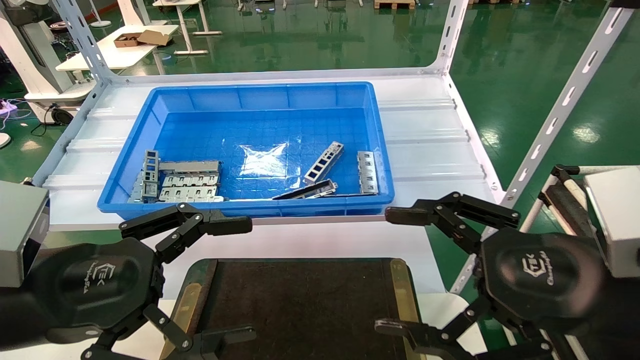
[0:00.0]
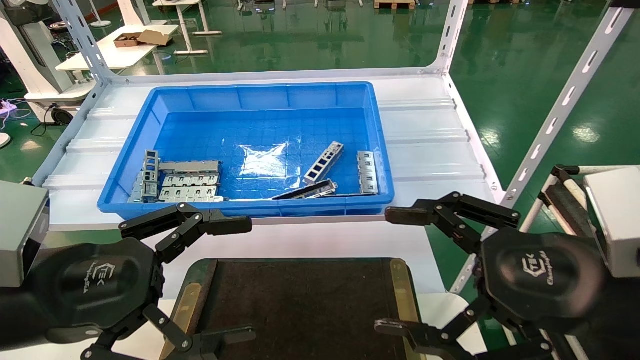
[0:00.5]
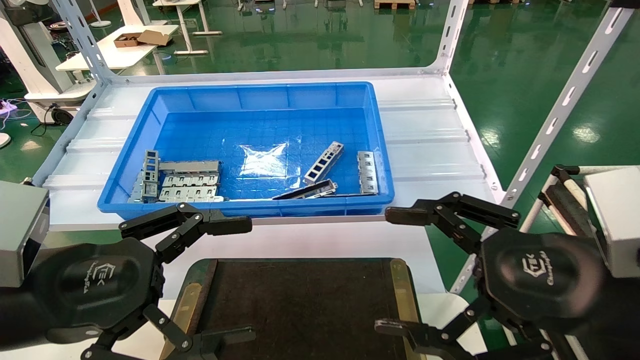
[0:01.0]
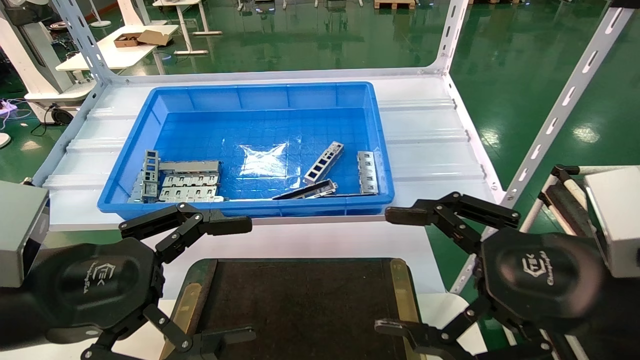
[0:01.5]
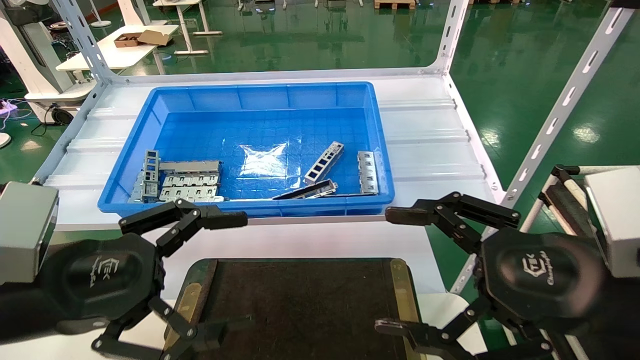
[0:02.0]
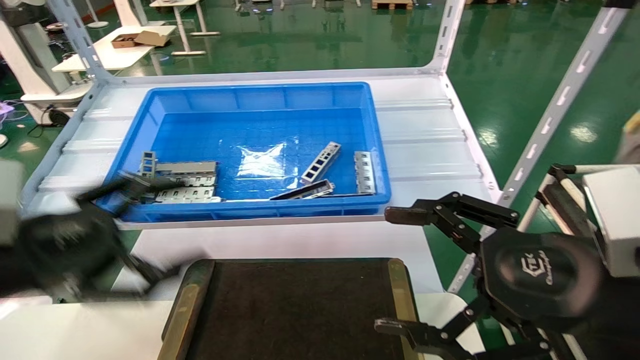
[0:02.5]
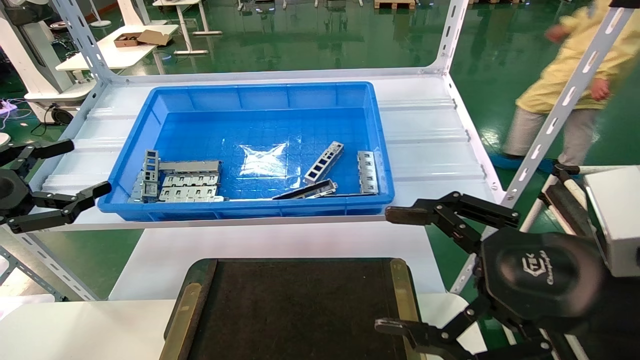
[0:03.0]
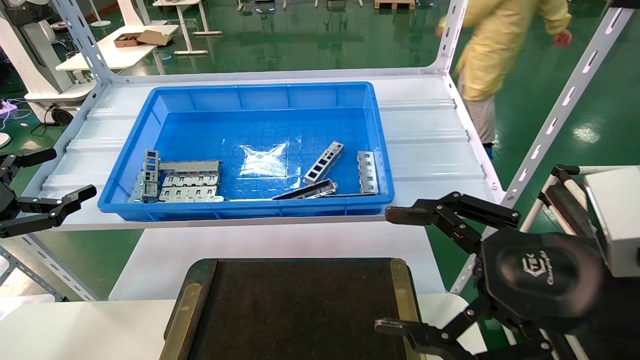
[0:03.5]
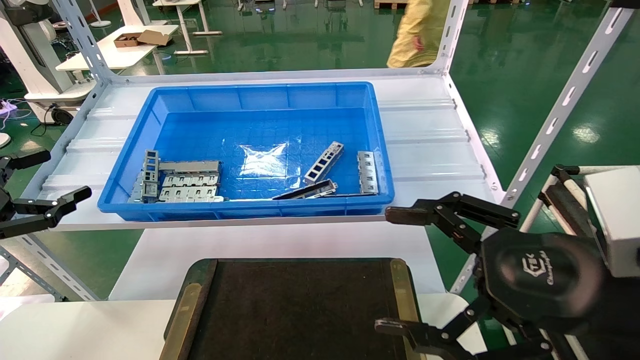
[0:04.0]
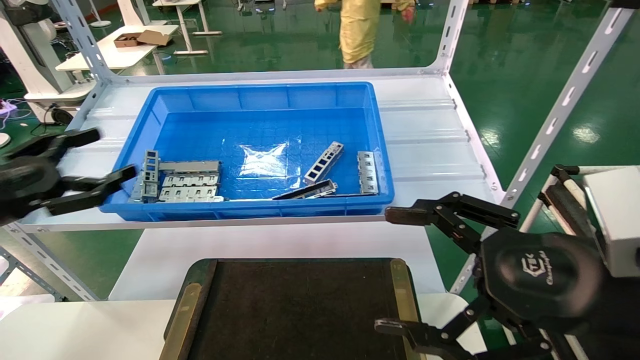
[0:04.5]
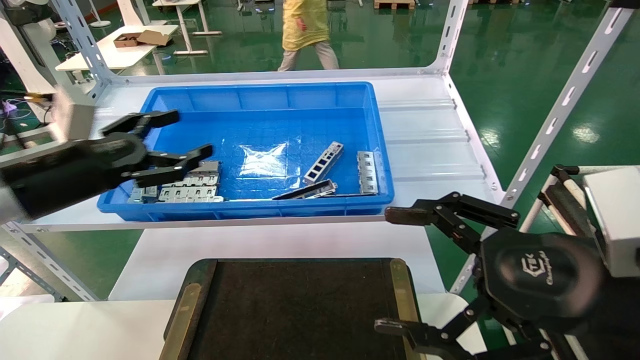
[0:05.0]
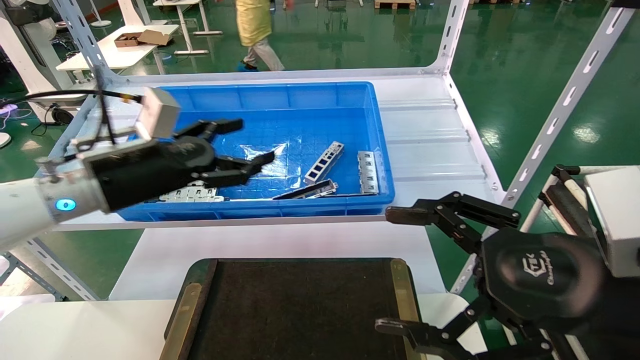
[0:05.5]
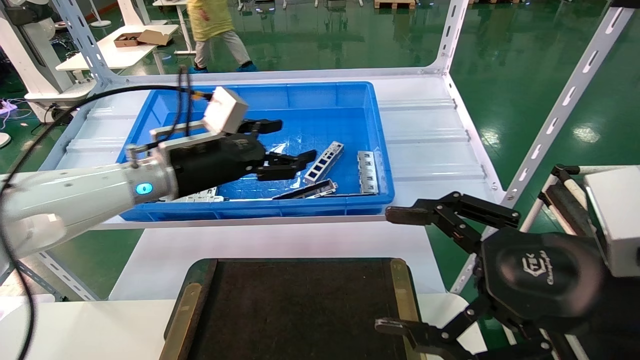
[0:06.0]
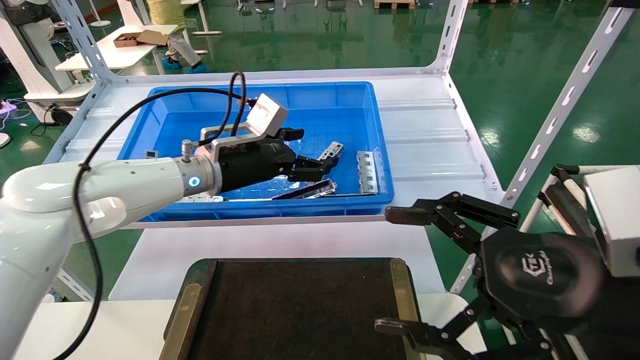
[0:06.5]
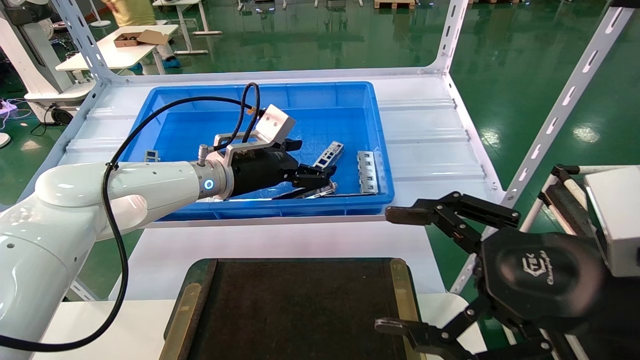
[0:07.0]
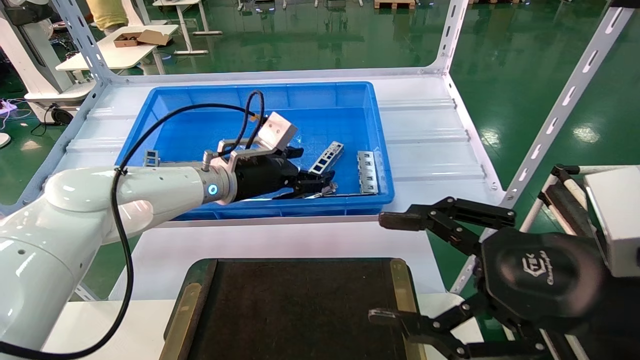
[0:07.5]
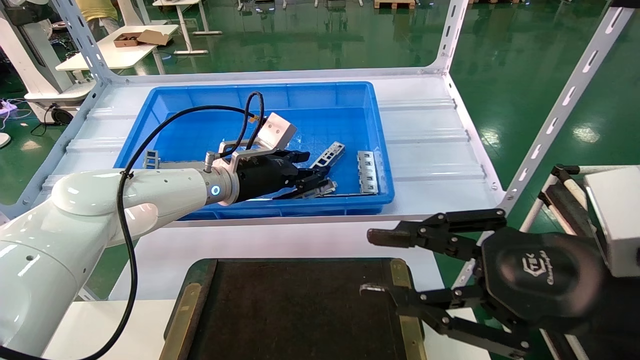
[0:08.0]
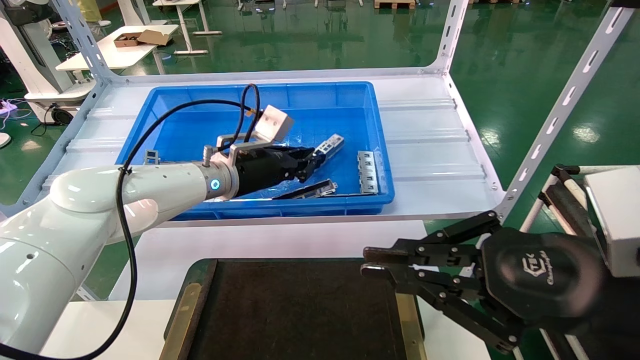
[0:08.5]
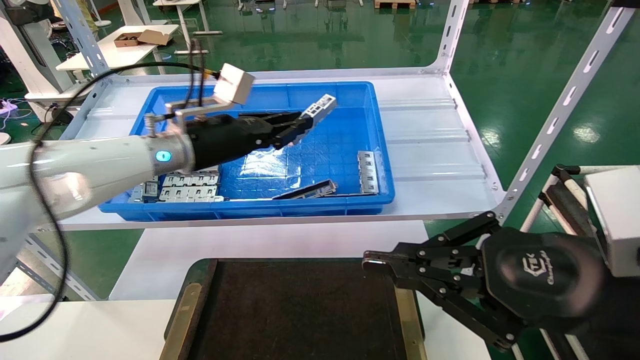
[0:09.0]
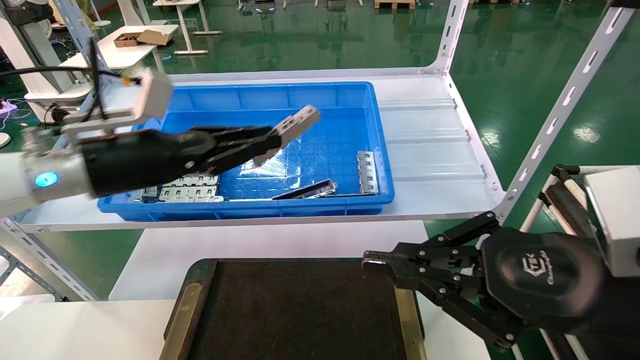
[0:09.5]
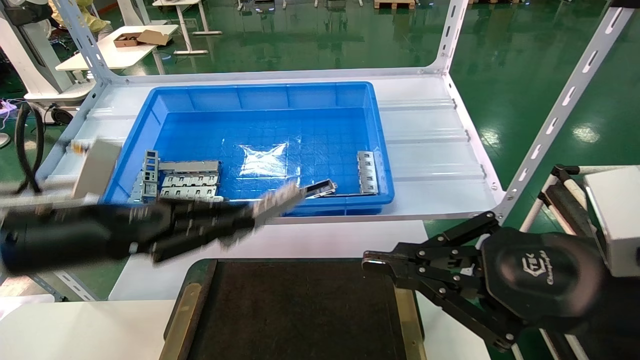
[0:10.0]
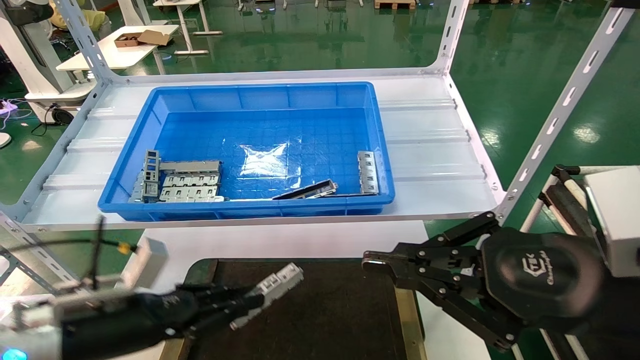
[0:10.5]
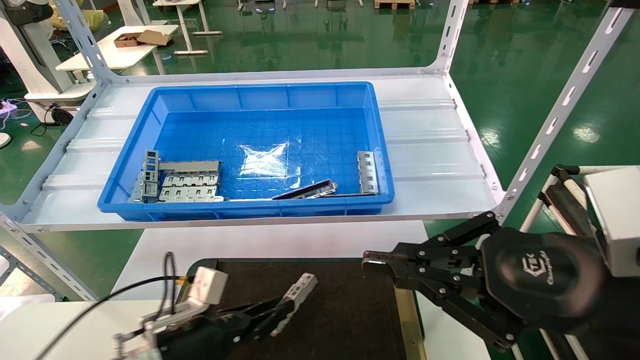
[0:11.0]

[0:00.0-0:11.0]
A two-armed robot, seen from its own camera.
Task of the whole recording: Grasp the part with one hand and place it on the black container.
Step, 0:02.0 to 0:08.5: Pick up the front USB bracket from the feeding area.
0:00.0 to 0:02.0: Neither gripper changes place.
0:02.0 to 0:03.5: The left gripper goes roughly 20 cm to the left.
0:03.5 to 0:05.5: The left gripper shifts approximately 25 cm to the right and forward.
0:05.5 to 0:07.5: The left gripper heads to the right and forward, covering roughly 15 cm.
0:07.5 to 0:09.0: The right gripper closes, while the left gripper moves upward, roughly 5 cm, and closes its fingers.
0:09.0 to 0:11.0: The left gripper heads downward and backward, covering approximately 30 cm.

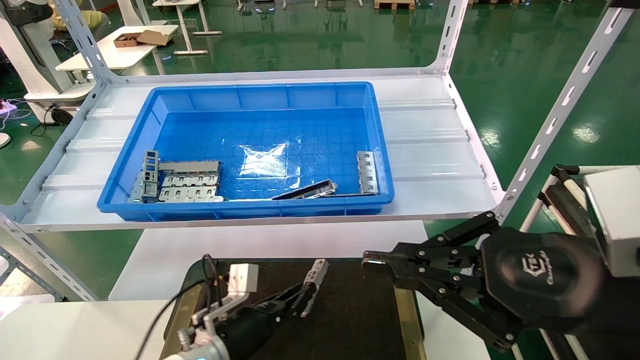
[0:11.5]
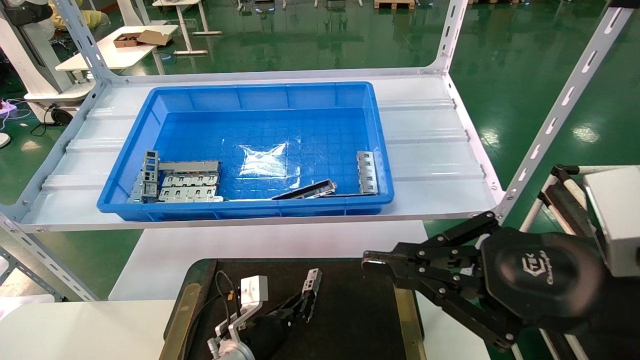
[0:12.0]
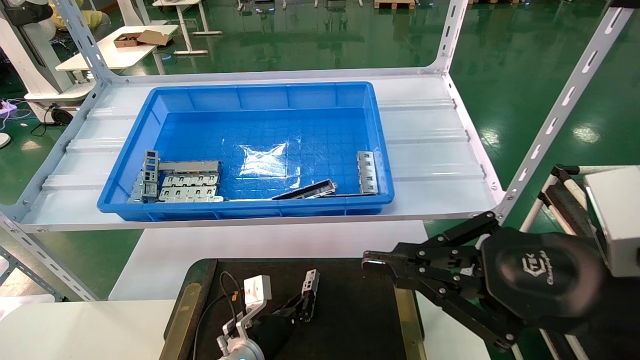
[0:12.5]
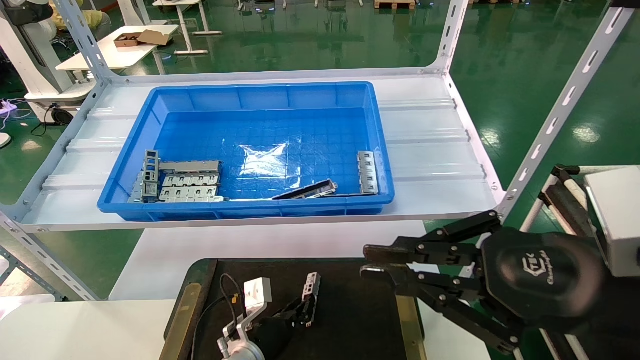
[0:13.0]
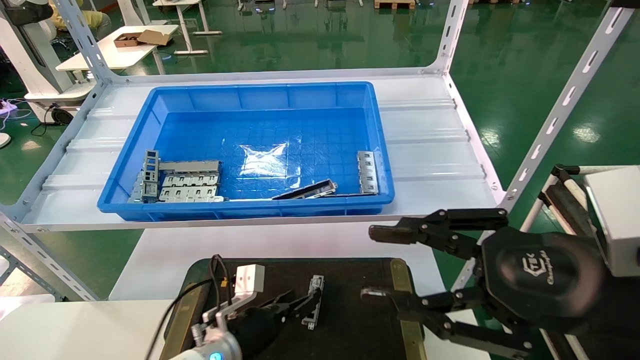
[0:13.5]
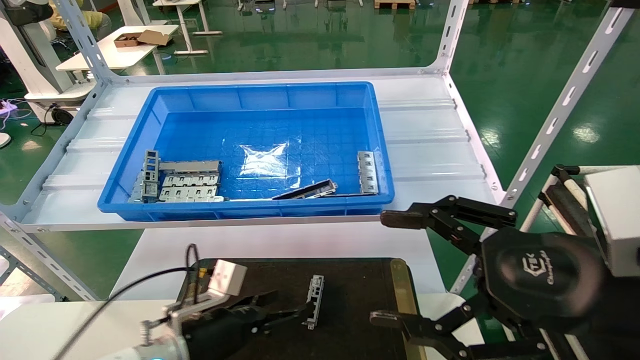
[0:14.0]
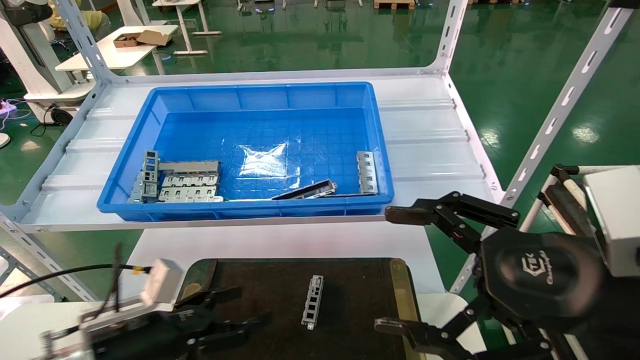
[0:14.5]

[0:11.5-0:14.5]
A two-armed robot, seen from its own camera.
Task of the whole recording: Grasp the part with one hand and place it on the black container.
0:11.5 to 0:13.0: The left gripper ends up some 5 cm from where it was.
0:13.0 to 0:14.5: The right gripper opens, while the left gripper goes approximately 20 cm to the left, upward and backward, and opens.

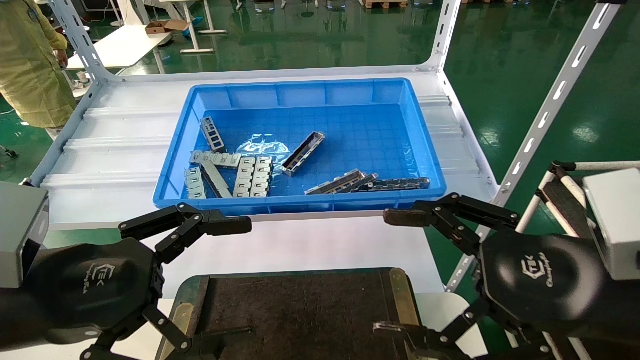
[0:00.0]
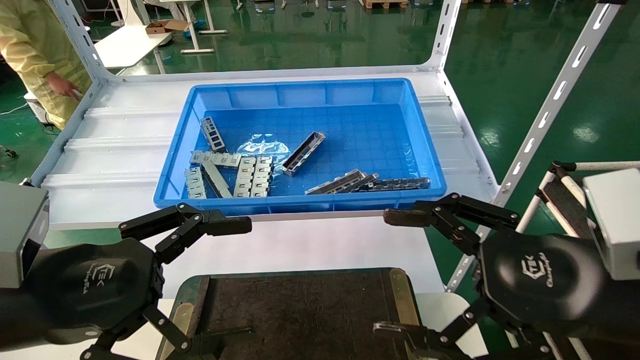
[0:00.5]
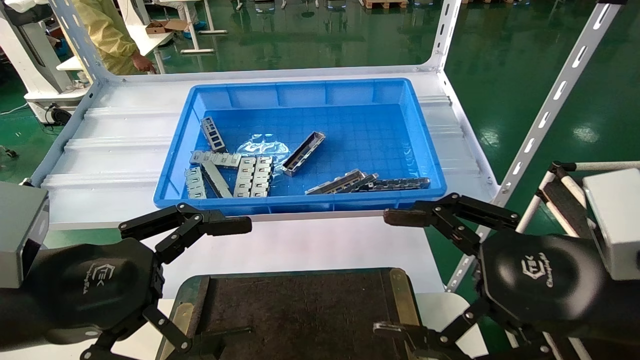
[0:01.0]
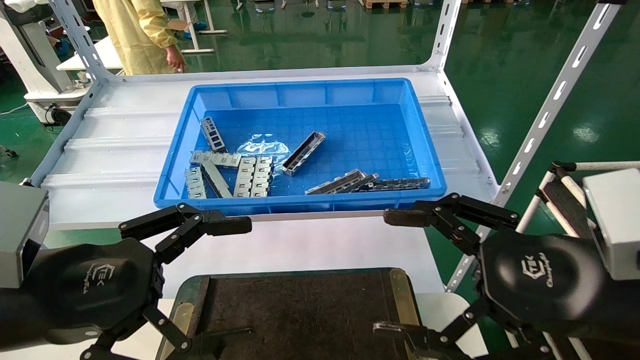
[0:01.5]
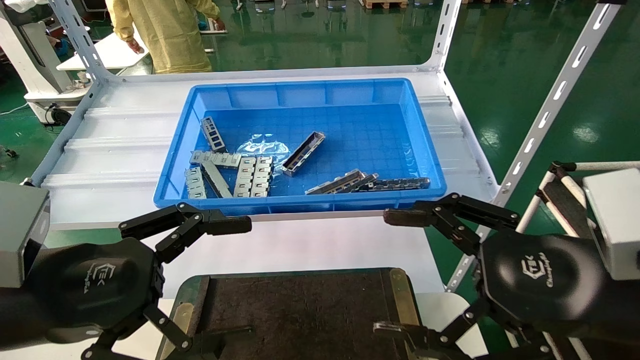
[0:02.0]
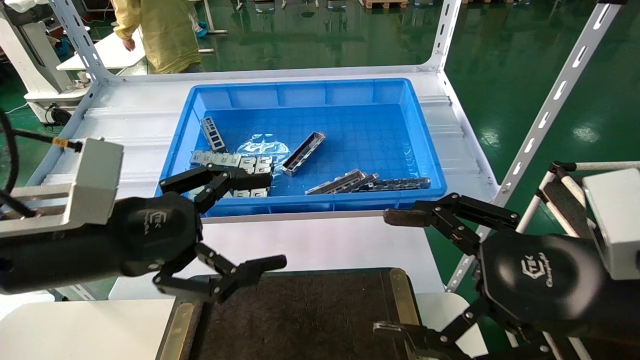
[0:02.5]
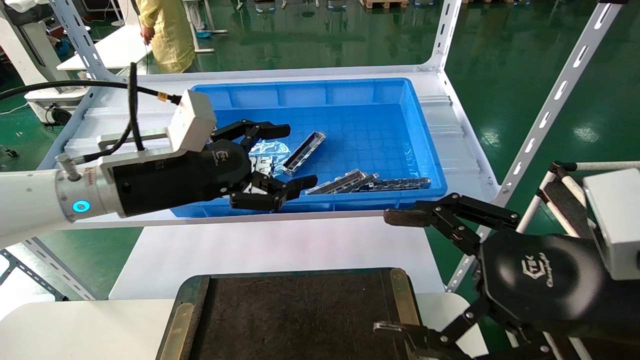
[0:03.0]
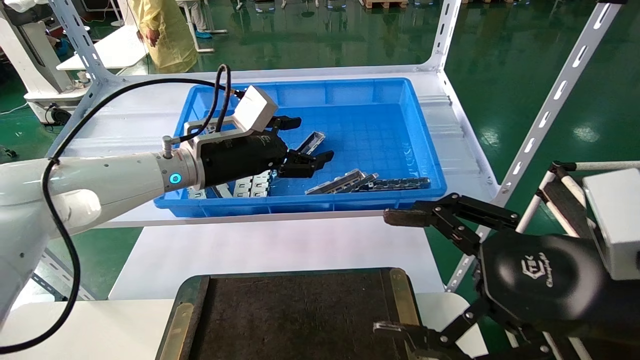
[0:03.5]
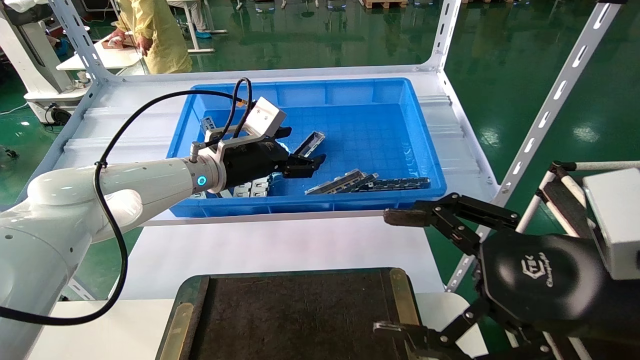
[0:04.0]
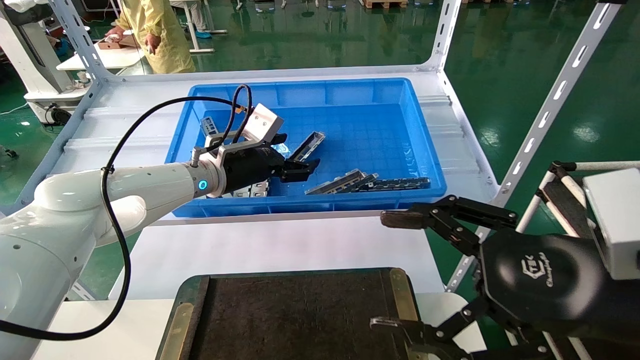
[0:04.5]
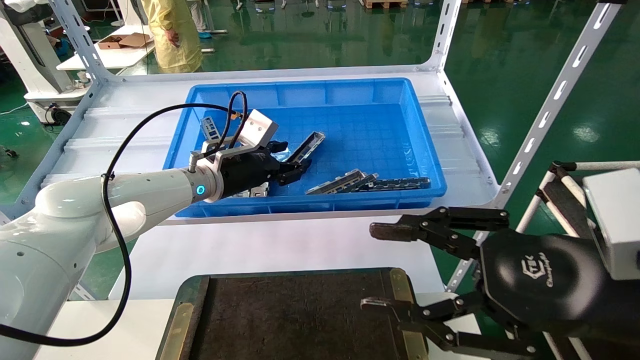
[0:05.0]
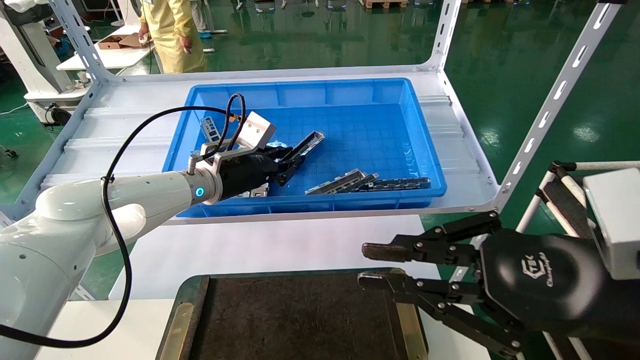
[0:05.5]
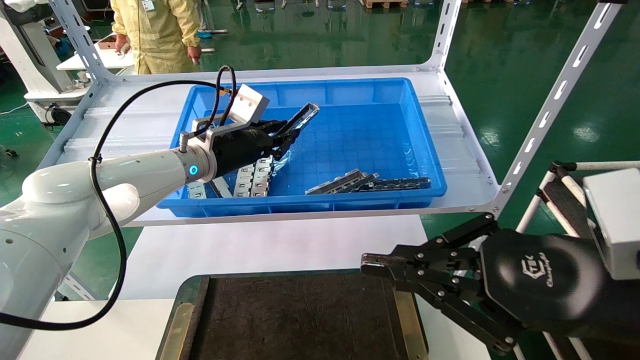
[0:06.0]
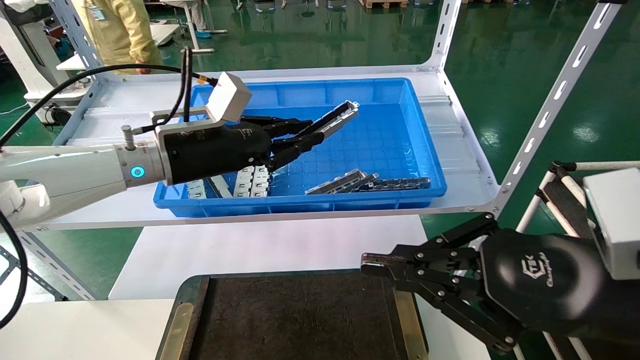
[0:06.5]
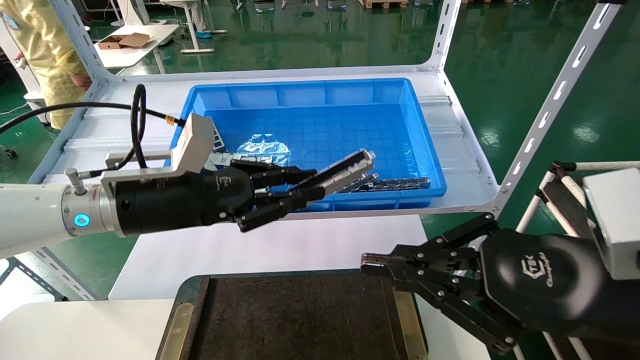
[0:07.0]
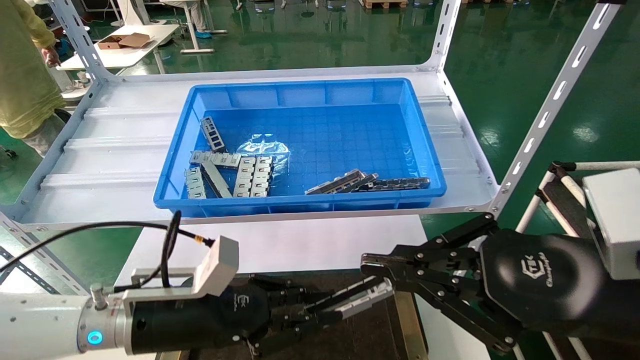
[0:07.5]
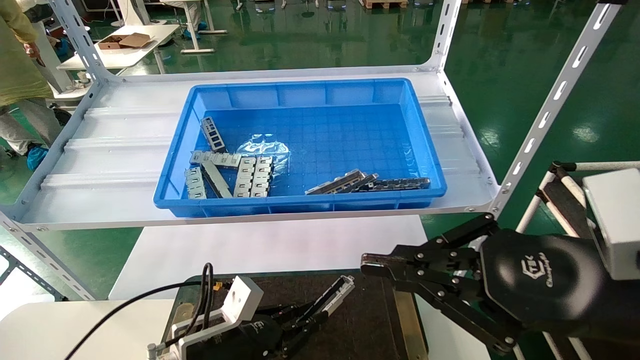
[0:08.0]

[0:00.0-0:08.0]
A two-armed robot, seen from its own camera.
Task of the whole recording: Grasp the part with one hand and place it on the black container.
Step, 0:03.0 to 0:06.5: Pick up the front USB bracket from the feeding area.
0:00.0 to 0:02.0: Both grippers stay about where they are.
0:02.0 to 0:04.0: The left gripper shifts some 30 cm forward.
0:04.0 to 0:06.0: The left gripper closes its fingers. Meanwhile the right gripper closes its fingers.
0:06.0 to 0:08.0: The left gripper shifts roughly 30 cm downward and backward.
